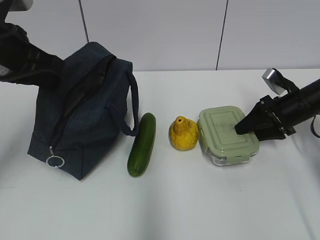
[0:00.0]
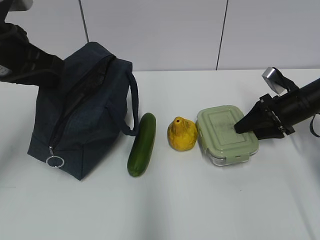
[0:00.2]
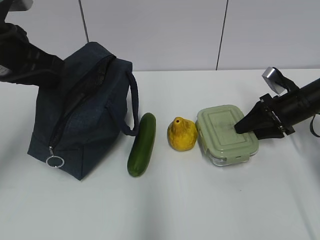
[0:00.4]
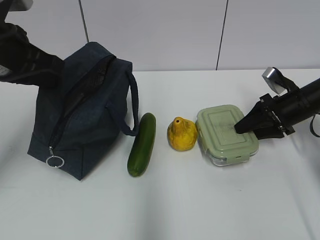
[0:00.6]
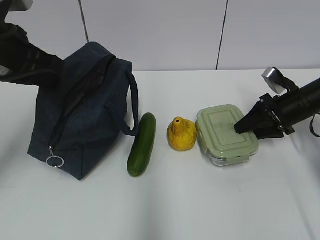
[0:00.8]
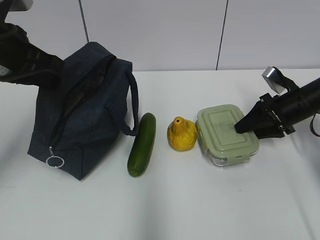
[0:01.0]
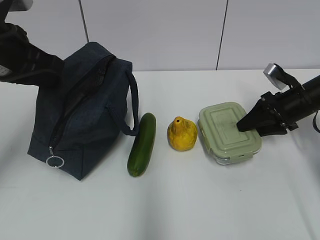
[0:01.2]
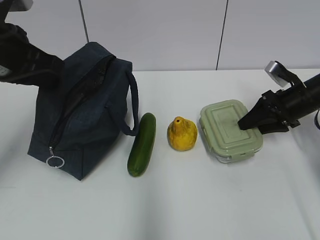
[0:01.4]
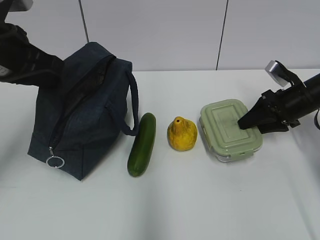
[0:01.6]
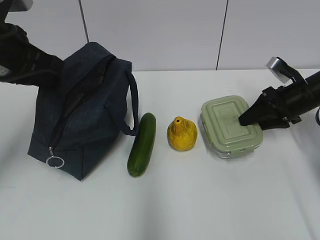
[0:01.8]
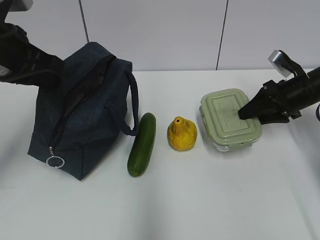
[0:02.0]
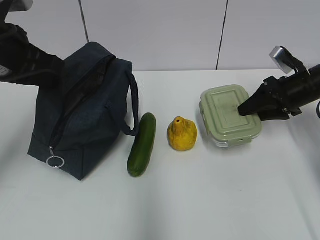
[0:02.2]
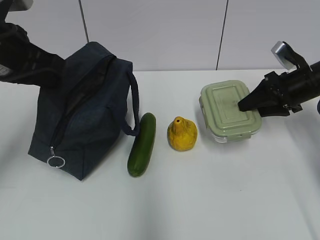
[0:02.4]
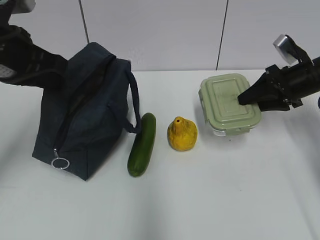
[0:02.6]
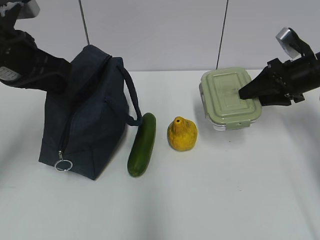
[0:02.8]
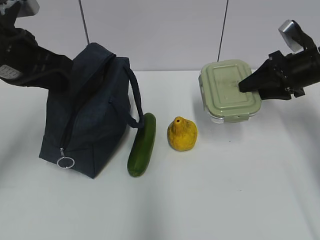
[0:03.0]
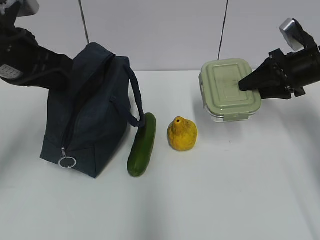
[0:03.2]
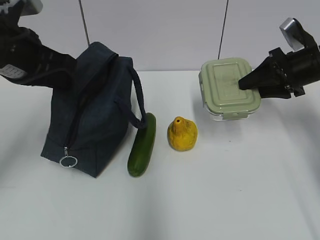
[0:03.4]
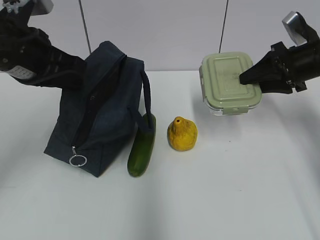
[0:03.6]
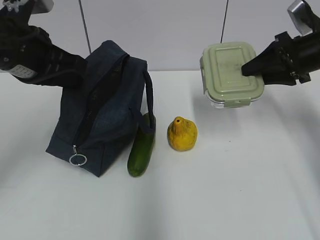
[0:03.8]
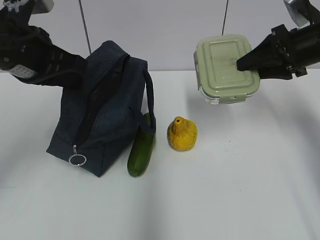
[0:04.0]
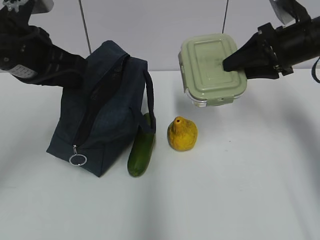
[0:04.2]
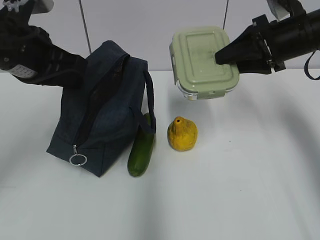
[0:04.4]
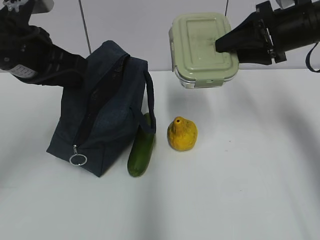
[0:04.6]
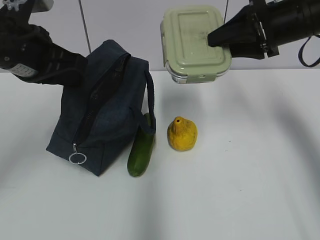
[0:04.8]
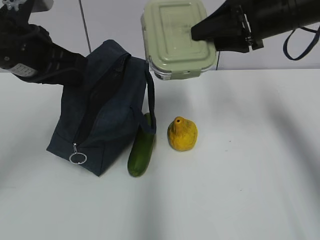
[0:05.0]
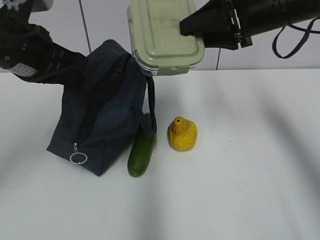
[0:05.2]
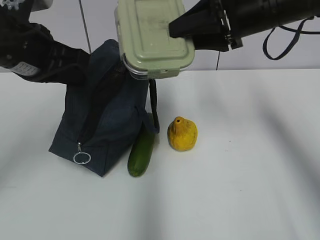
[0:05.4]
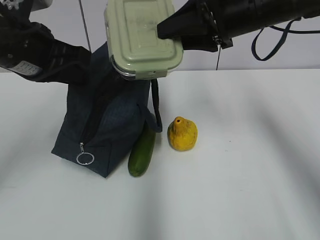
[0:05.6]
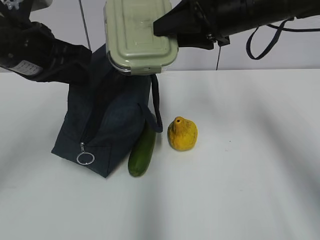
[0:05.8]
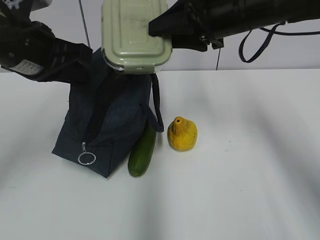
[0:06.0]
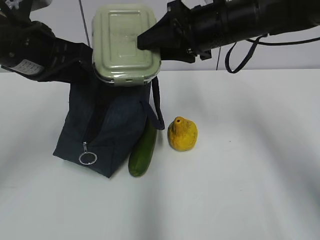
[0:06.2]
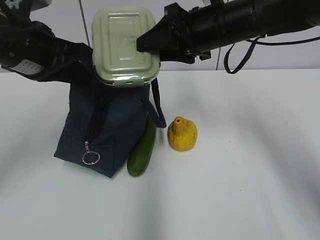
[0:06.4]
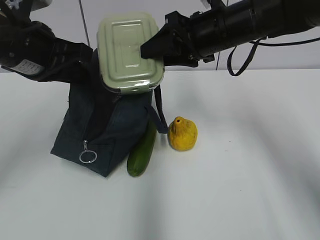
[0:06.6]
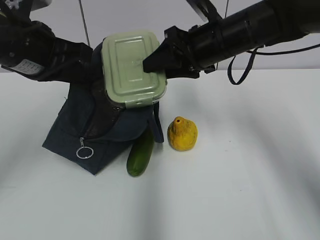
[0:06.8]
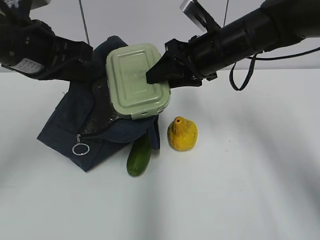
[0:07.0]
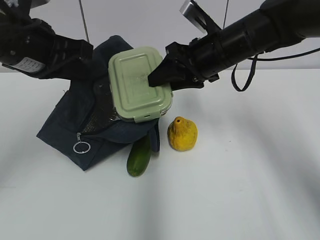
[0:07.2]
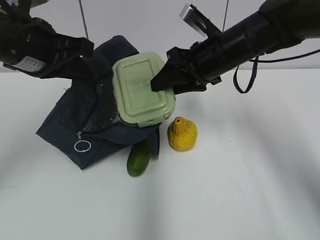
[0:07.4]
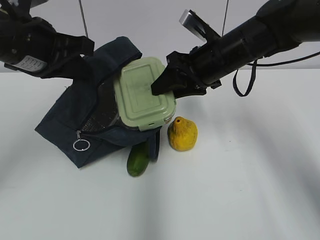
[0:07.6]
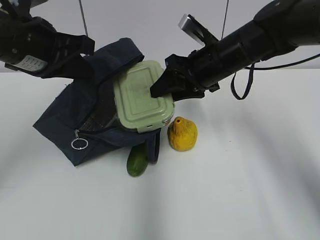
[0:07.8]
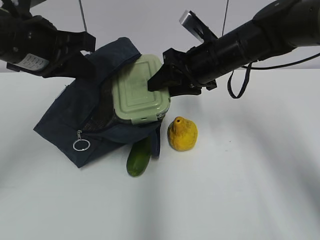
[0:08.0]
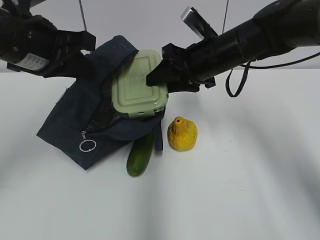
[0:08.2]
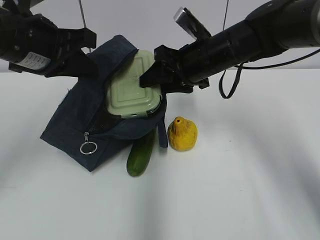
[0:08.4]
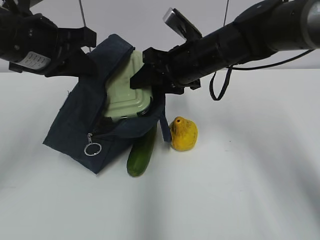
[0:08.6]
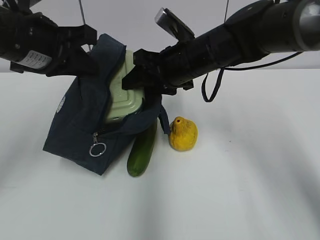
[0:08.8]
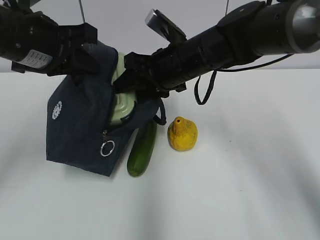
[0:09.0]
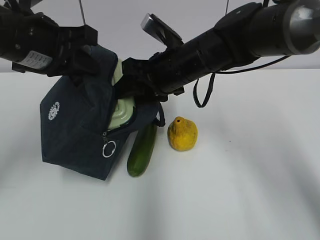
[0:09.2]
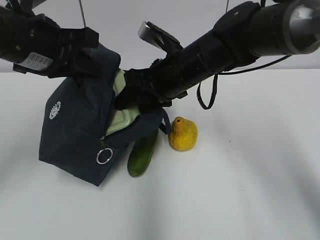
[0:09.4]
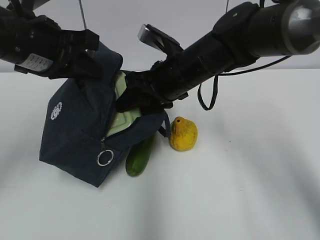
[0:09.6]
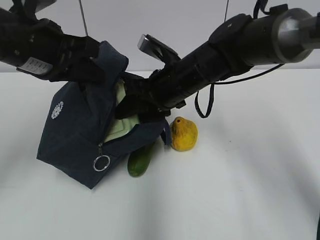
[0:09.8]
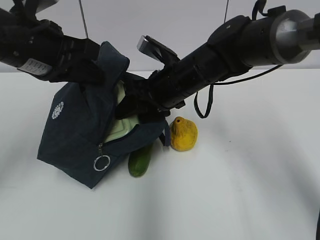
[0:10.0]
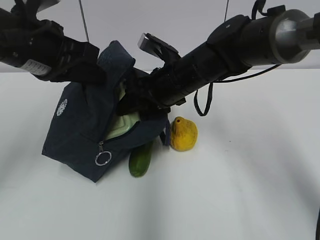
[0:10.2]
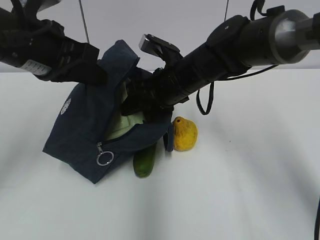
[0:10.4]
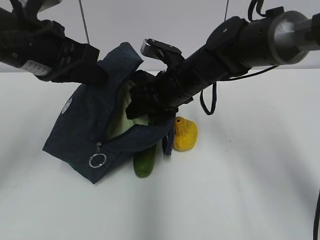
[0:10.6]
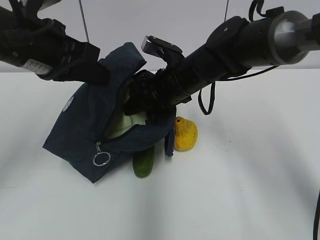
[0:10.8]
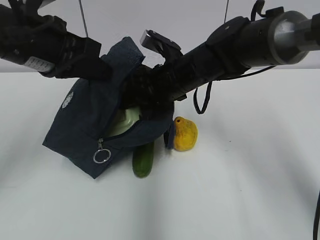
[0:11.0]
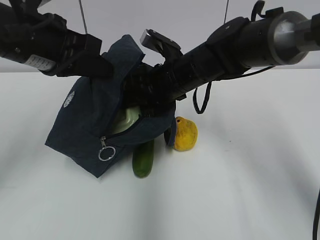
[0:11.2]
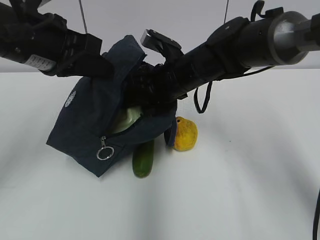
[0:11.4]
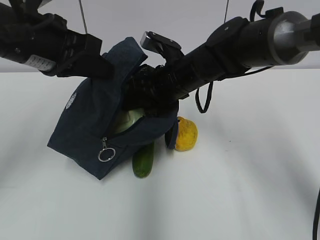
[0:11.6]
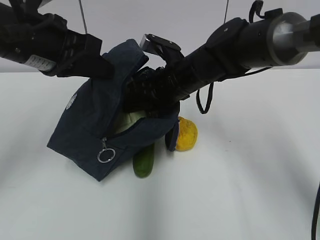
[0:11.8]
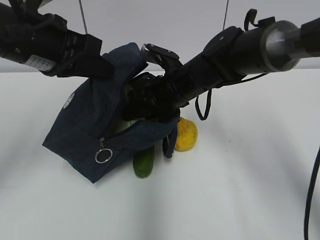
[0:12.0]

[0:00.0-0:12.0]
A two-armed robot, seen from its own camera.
0:00.0 to 0:01.6: The grippers move only a little.
0:01.6 to 0:03.0: The right gripper goes about 5 cm upward.
0:03.0 to 0:04.4: The right gripper goes approximately 10 cm upward and to the left.
0:04.4 to 0:06.0: The right gripper shifts some 10 cm to the left.
0:06.0 to 0:07.6: The right gripper shifts some 5 cm downward.
0:07.6 to 0:09.0: The right gripper heads to the left, covering some 5 cm.
0:09.0 to 0:12.0: There are only small adjustments of the grippers.

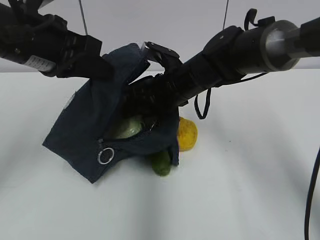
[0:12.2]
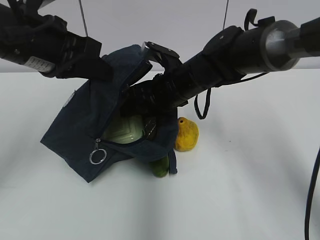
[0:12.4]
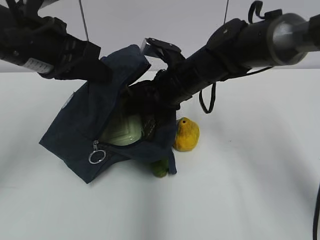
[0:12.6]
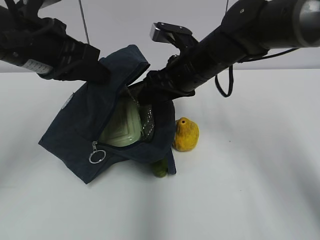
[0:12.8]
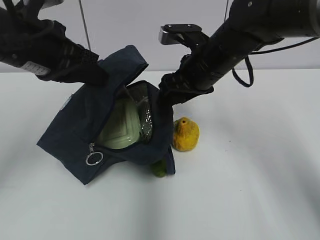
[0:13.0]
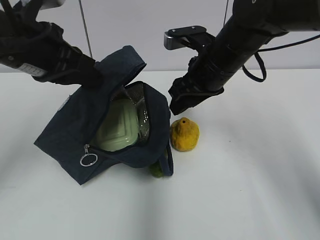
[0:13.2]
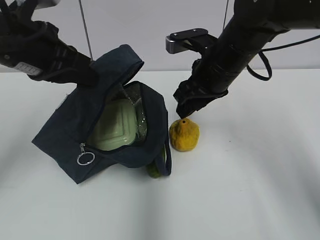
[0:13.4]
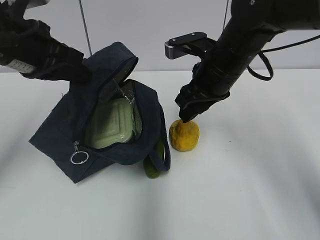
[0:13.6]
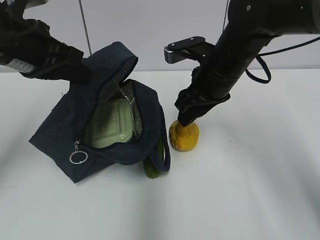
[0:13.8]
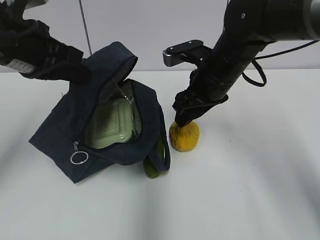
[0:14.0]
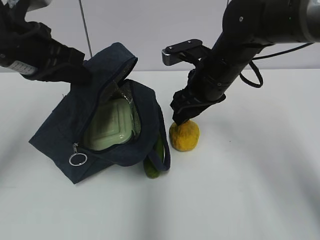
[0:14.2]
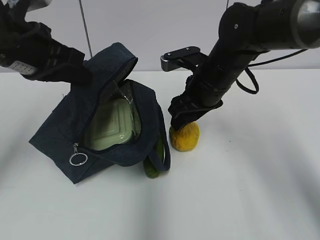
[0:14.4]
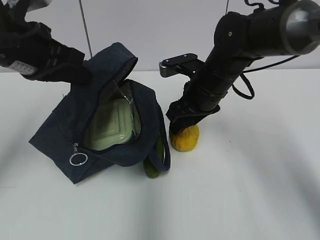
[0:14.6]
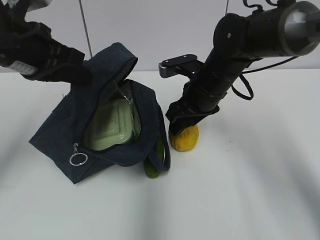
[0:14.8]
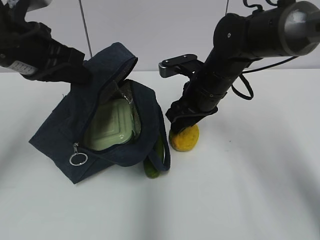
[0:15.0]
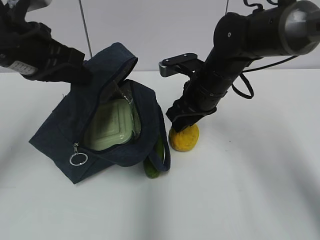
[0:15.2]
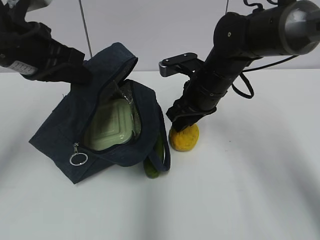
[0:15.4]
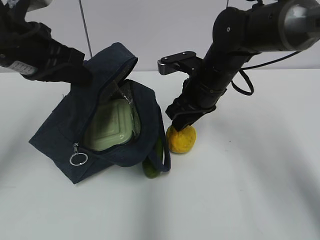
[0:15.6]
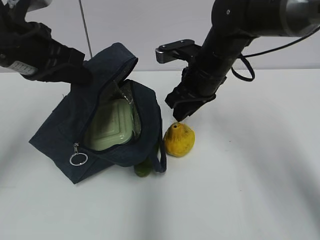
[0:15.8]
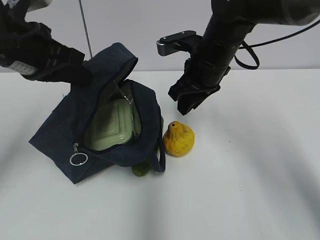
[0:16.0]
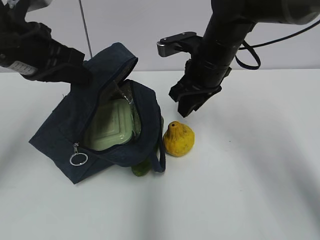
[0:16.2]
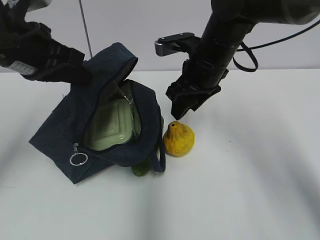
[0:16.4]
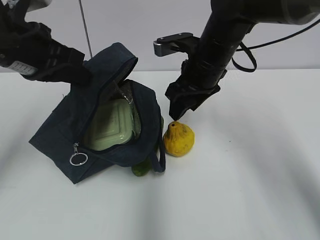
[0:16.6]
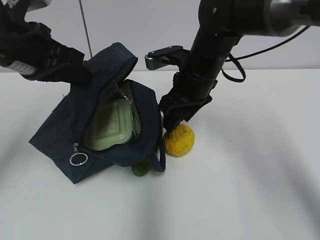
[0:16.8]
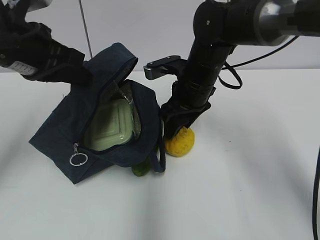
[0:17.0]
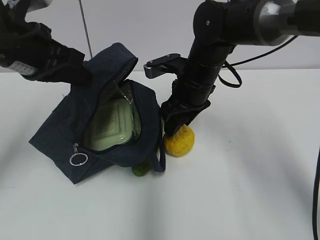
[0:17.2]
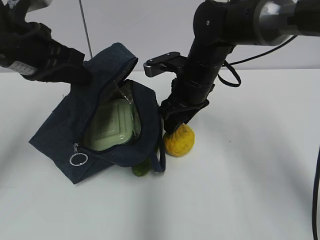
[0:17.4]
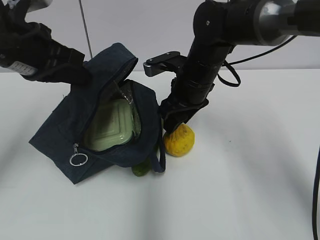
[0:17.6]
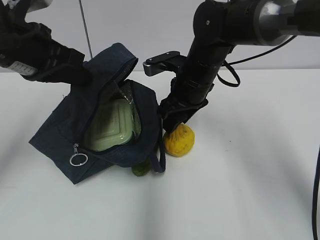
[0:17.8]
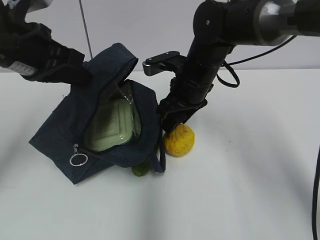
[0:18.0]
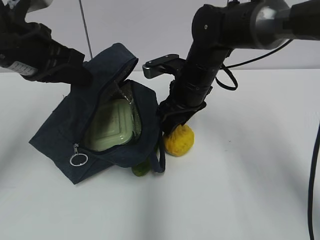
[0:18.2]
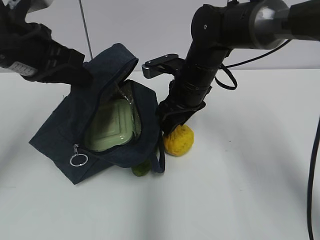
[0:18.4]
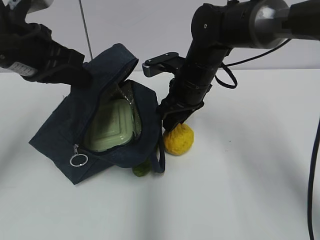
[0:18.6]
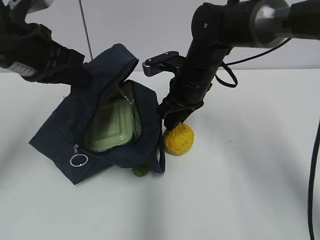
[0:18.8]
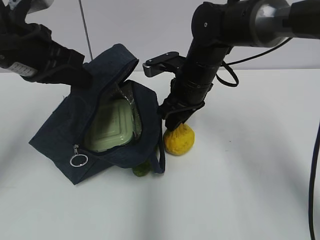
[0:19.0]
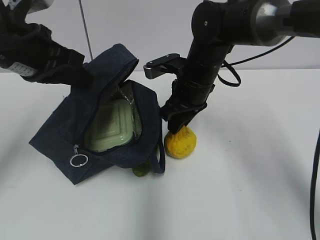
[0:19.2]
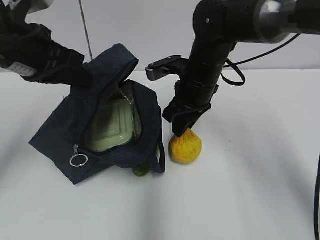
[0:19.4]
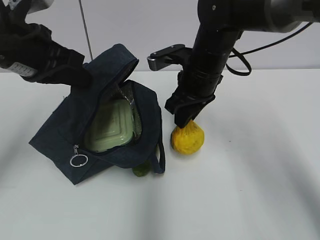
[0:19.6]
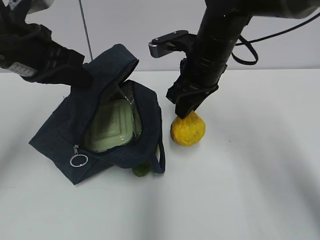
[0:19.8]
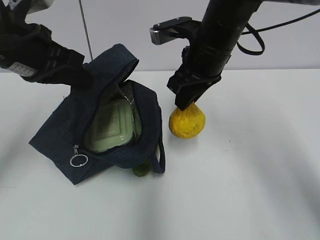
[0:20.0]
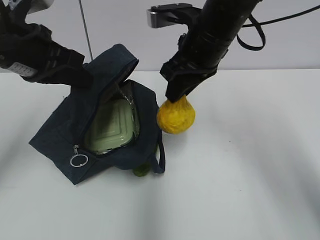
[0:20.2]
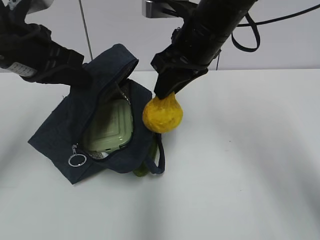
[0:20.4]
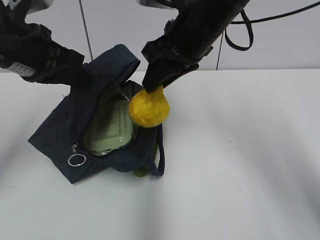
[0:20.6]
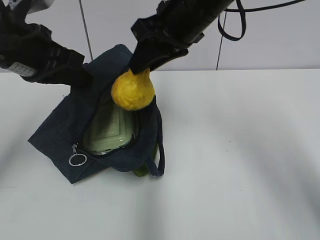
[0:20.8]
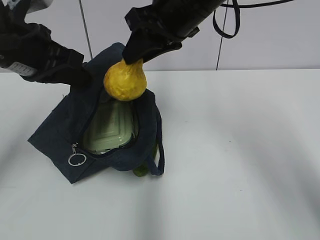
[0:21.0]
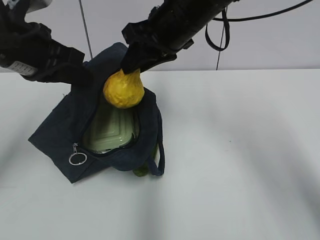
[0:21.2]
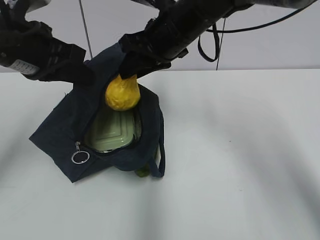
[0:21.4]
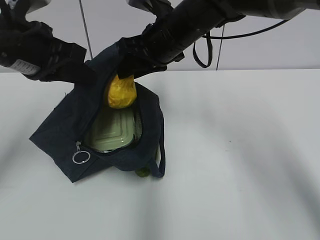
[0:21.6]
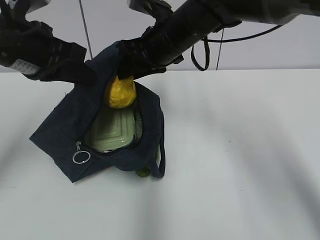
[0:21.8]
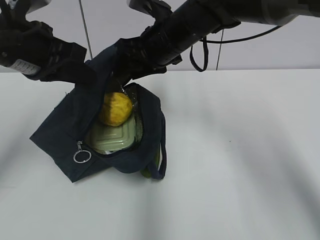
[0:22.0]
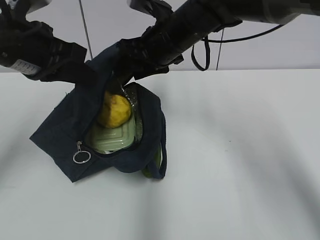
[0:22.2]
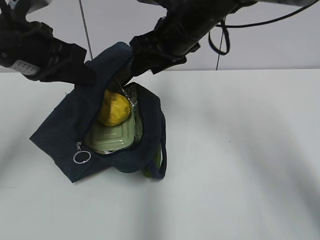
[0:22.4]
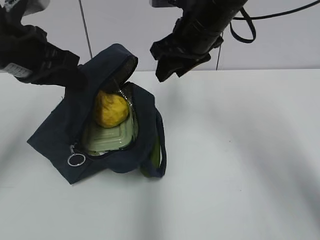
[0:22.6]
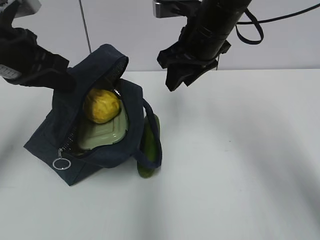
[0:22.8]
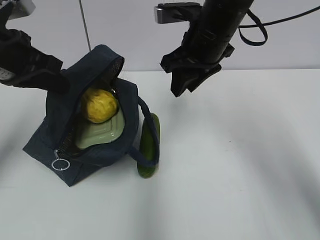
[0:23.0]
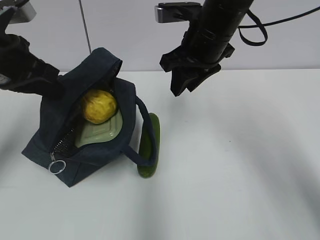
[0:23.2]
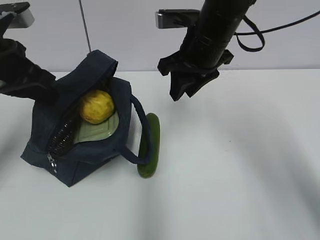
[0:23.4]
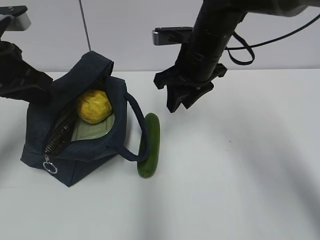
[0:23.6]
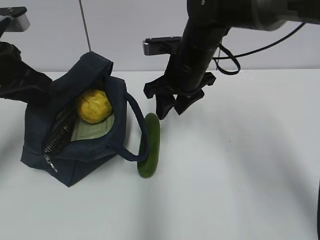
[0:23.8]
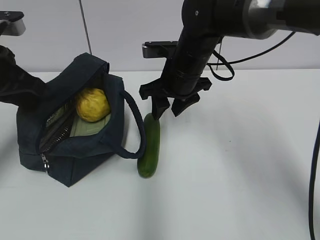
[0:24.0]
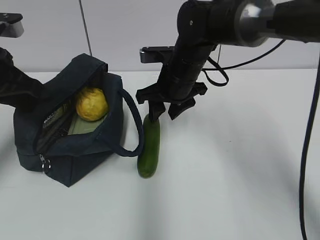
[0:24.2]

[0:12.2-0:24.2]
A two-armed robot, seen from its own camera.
Step, 0:12.8 to 0:18.8: Grab the pear with your right hand.
Step, 0:19.2 to 0:22.0: Place it into the bag with your right hand.
0:12.2 to 0:13.8: The right gripper shifts some 5 cm to the right.
0:13.8 to 0:18.2: The grippers stay close to where they were, moving slightly.
0:18.2 to 0:19.8: The right gripper is displaced upward by about 5 cm.
0:19.8 to 0:21.2: The right gripper travels upward by approximately 5 cm.
0:22.6 to 0:24.2: The right gripper heads downward, covering some 10 cm, while the left gripper travels to the left by about 5 cm.
